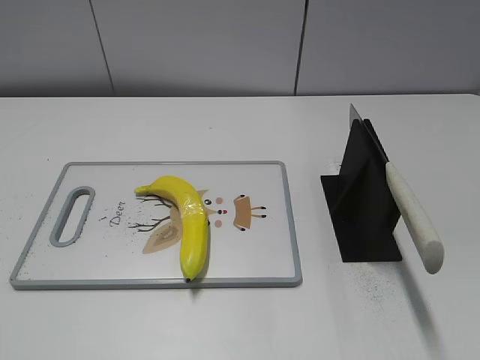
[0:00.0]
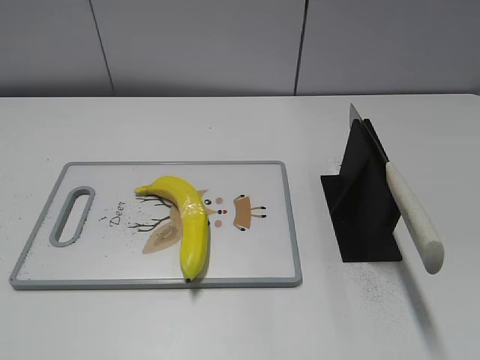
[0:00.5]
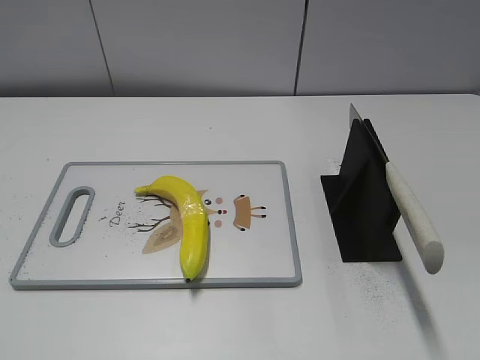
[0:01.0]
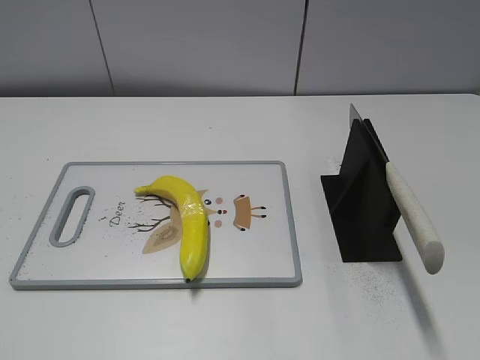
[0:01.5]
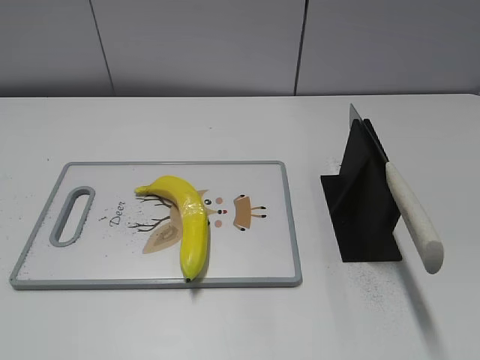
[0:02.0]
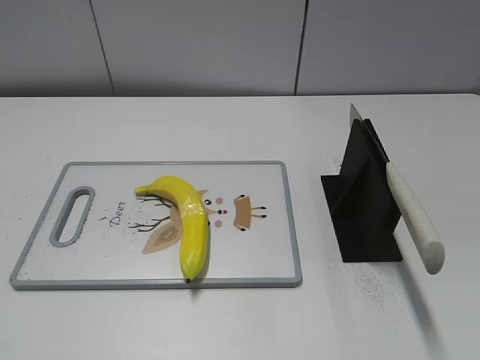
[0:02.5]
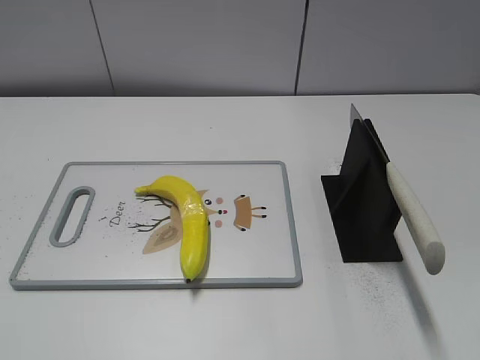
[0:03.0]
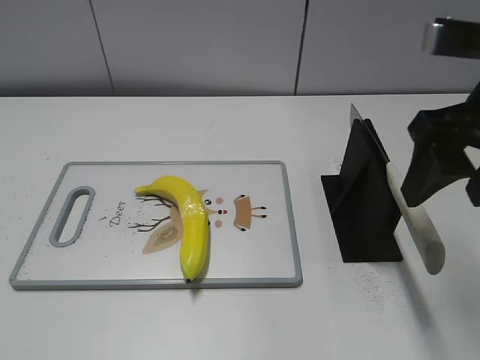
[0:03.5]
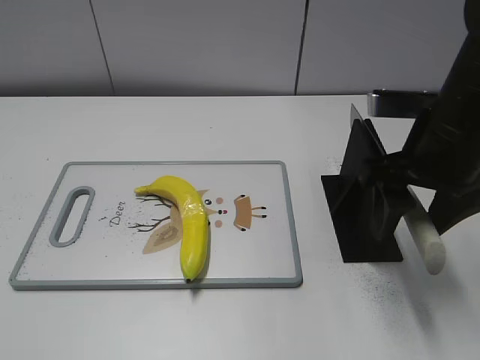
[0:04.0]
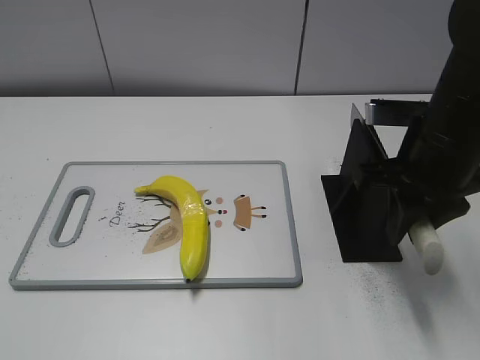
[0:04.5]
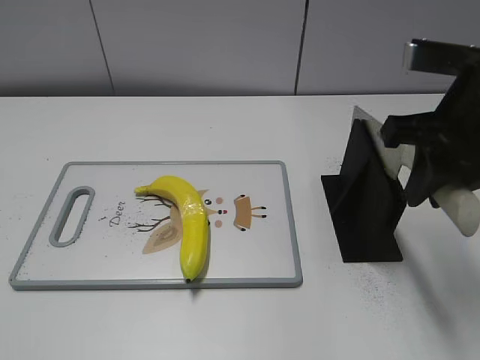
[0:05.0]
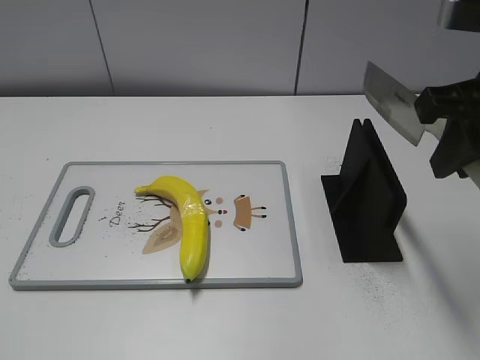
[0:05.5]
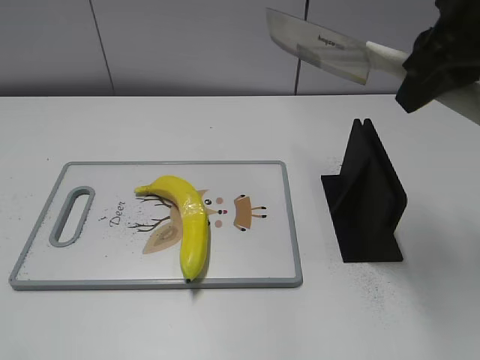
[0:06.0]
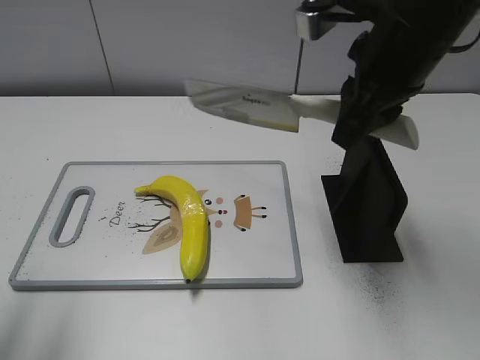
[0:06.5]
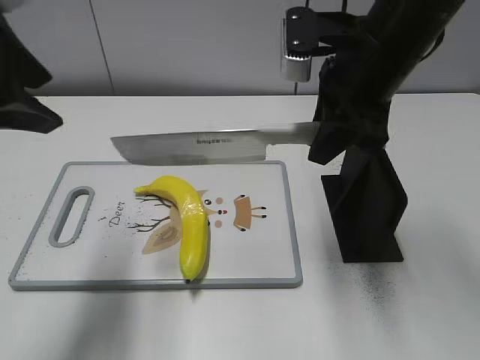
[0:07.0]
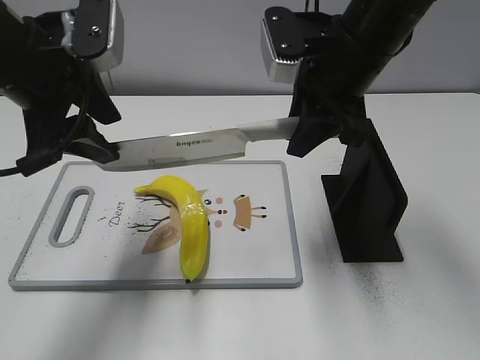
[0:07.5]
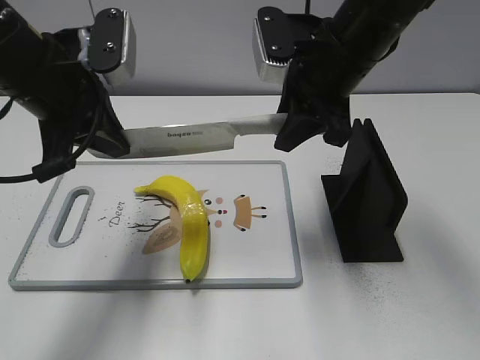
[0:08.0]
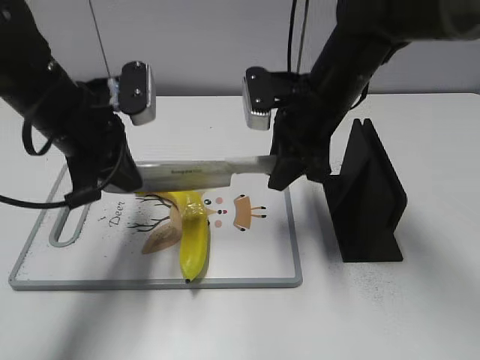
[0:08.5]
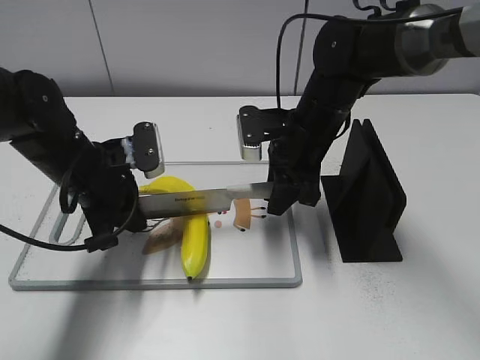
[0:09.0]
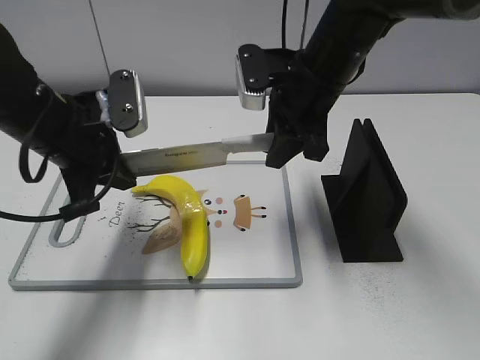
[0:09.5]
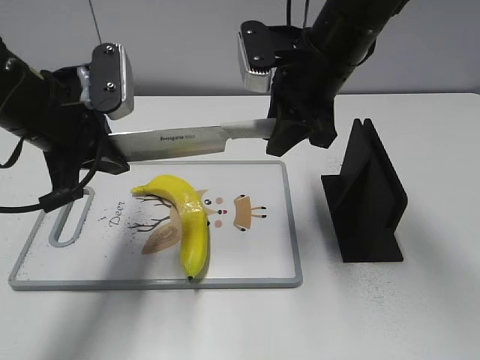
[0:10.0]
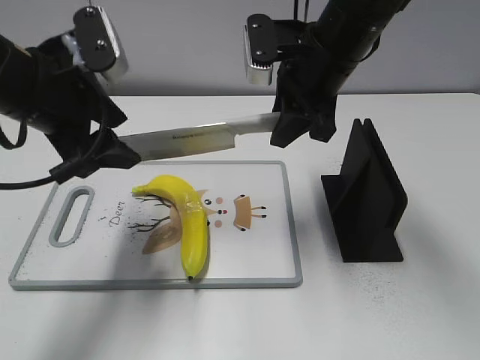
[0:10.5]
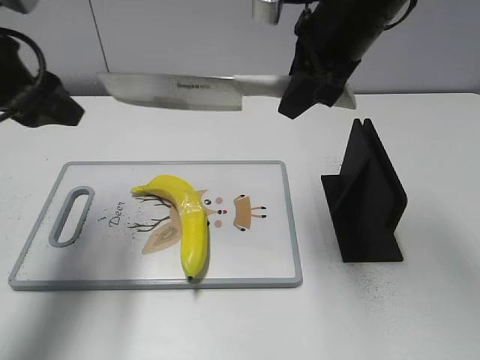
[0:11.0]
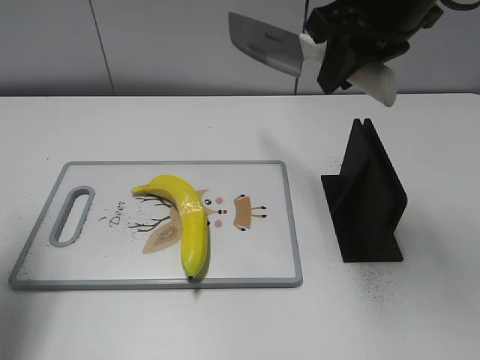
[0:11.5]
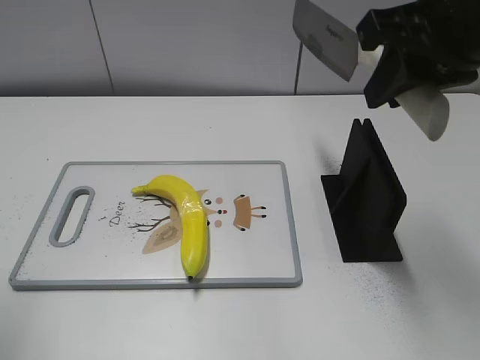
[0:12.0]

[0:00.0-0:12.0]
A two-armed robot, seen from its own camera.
Task of the whole recording: cut plastic banana.
Step, 0:00.0 to 0:05.0: Grab the knife handle with your right hand.
Step, 0:05.5 to 0:10.0: Lift the knife with your right hand.
Step, 0:10.5 to 0:11.0: Cut the banana with your right hand.
0:02.0 to 0:04.0: The right gripper shifts about 30 cm forward and to the left.
0:04.0 to 0:06.0: The right gripper is displaced upward by roughly 10 cm, and closes its fingers.
0:06.0 to 0:08.0: The left gripper travels forward and to the right by roughly 30 cm, and closes its fingers, while the right gripper is displaced downward, to the left and forward by approximately 15 cm.
0:08.0 to 0:10.0: The right gripper reaches some 10 cm downward, then returns. The left gripper reaches approximately 15 cm downward, then returns.
0:10.0 to 0:12.0: The left gripper travels backward, to the left and upward by approximately 20 cm, and opens up. Meanwhile the right gripper is displaced backward, upward and to the right by some 15 cm.

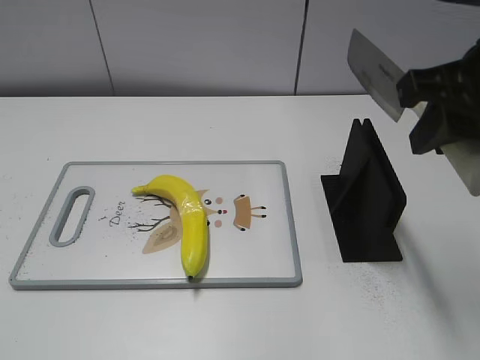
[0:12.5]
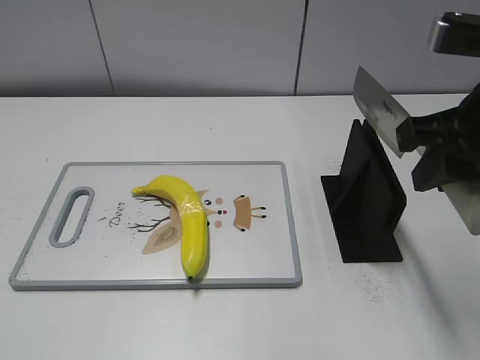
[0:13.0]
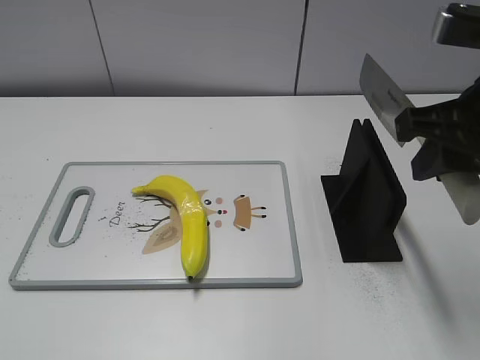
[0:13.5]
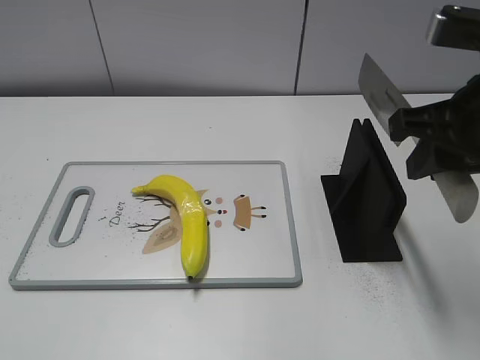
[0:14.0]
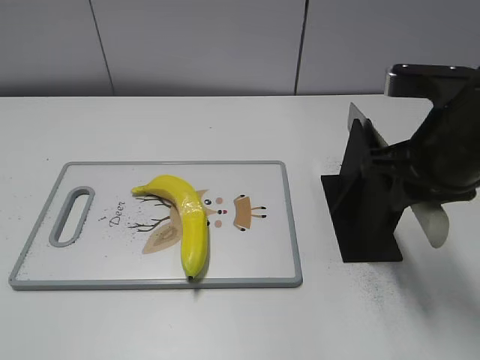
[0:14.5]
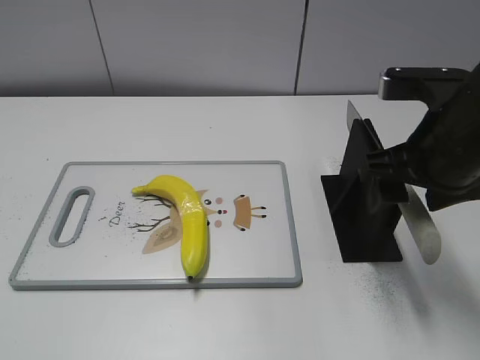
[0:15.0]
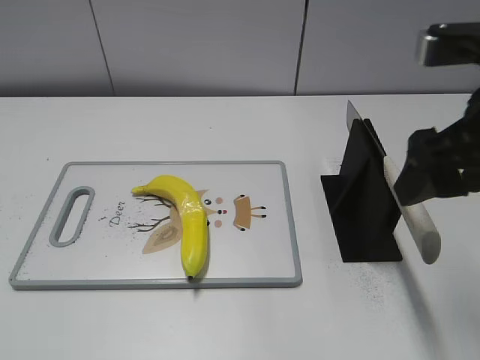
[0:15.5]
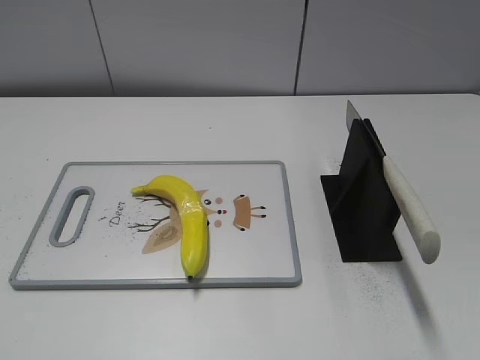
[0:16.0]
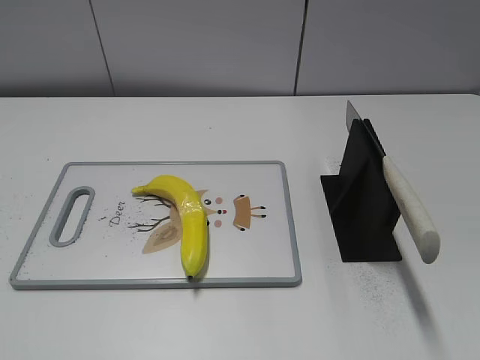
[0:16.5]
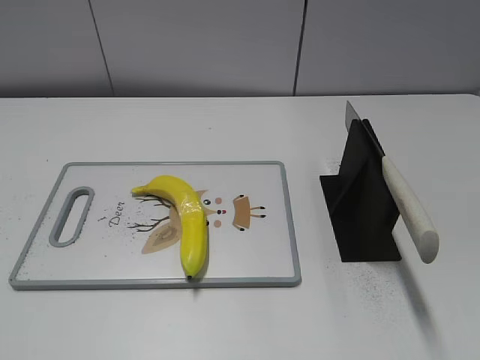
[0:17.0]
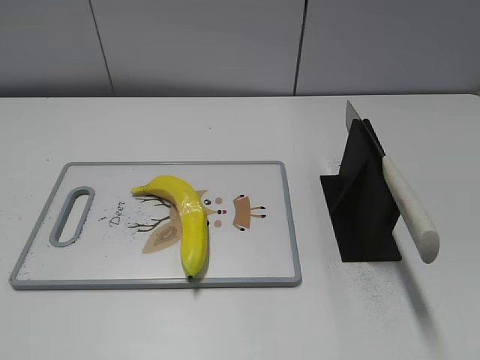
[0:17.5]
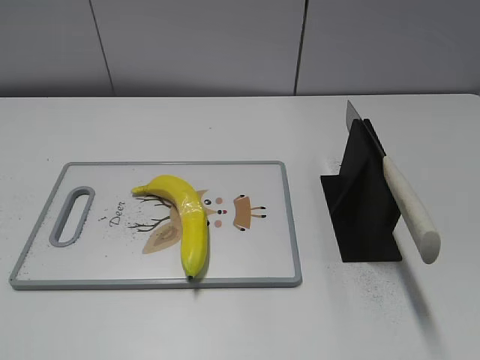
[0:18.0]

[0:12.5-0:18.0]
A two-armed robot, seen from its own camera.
Task of the whole recording: cut plastic banana.
Step, 0:12.5 to 0:18.0: Place the knife on the storage rack with your right hand.
0:12.5 to 0:14.5: The right gripper shifts about 10 cm downward.
0:14.5 to 0:16.0: The right gripper is displaced backward, upward and to the right by approximately 20 cm, and opens up.

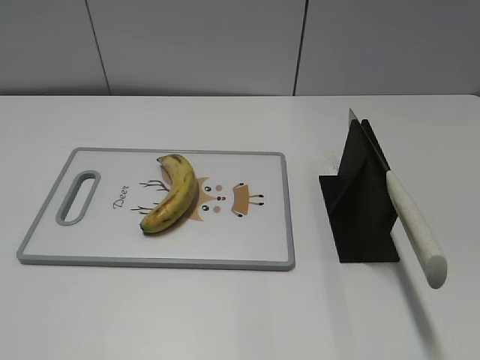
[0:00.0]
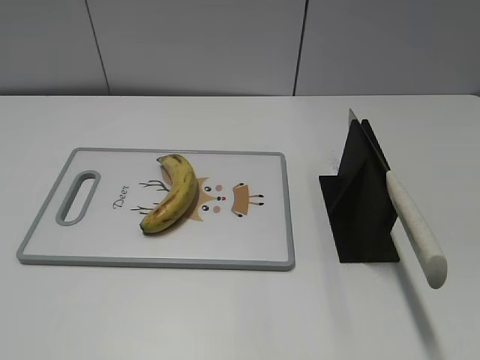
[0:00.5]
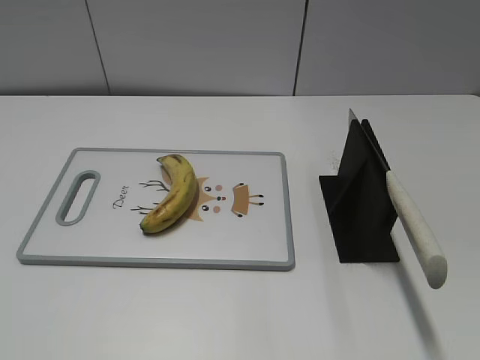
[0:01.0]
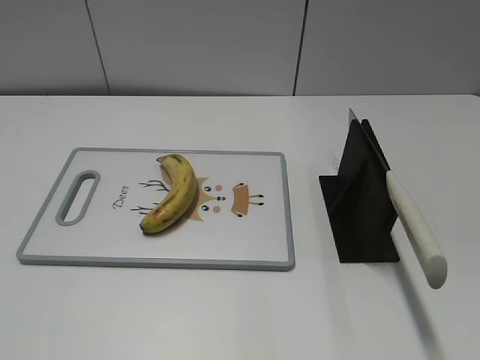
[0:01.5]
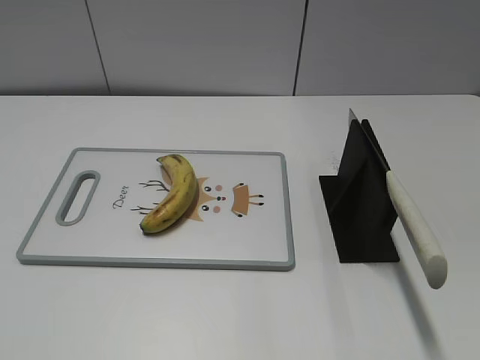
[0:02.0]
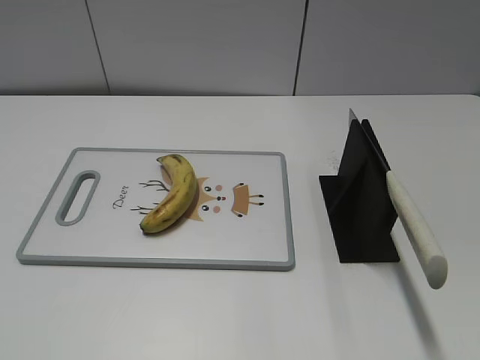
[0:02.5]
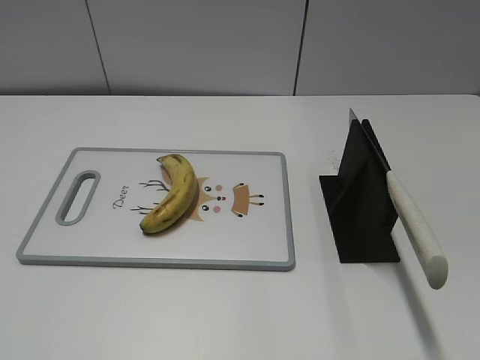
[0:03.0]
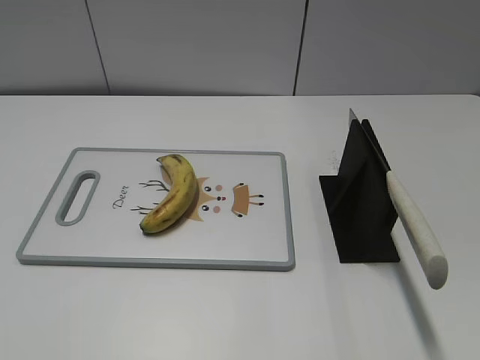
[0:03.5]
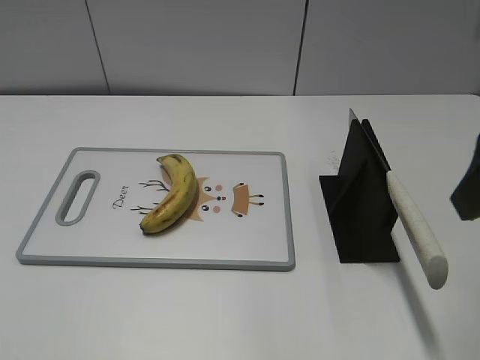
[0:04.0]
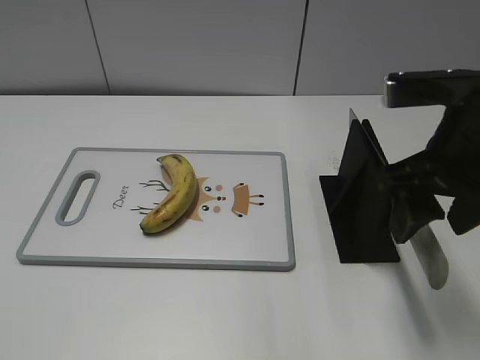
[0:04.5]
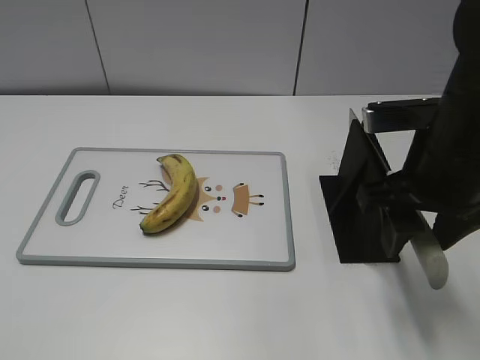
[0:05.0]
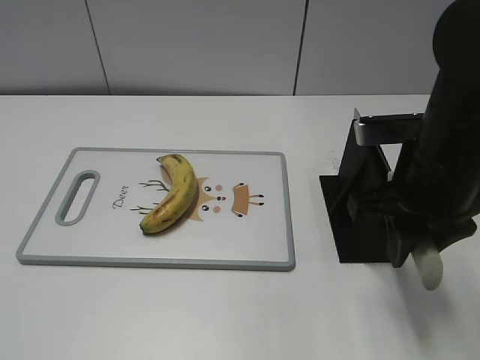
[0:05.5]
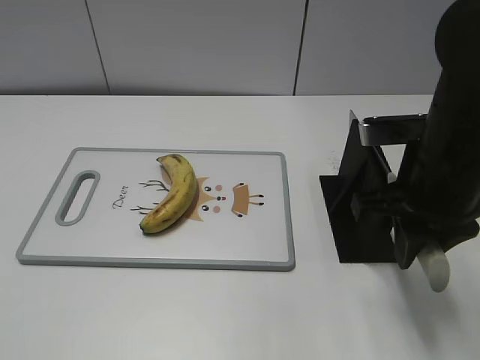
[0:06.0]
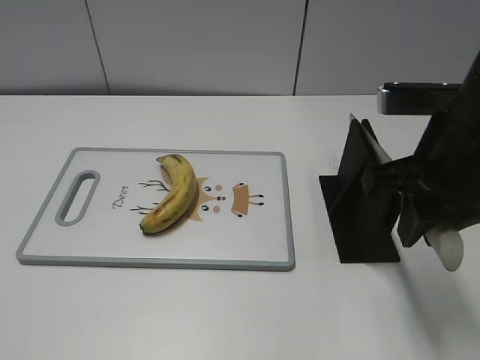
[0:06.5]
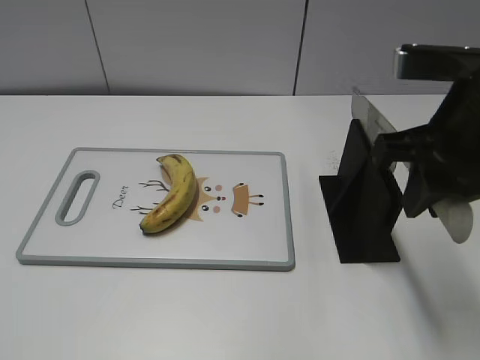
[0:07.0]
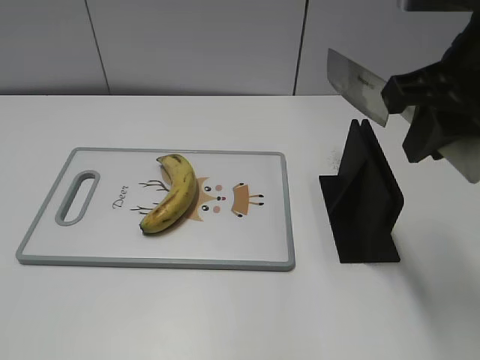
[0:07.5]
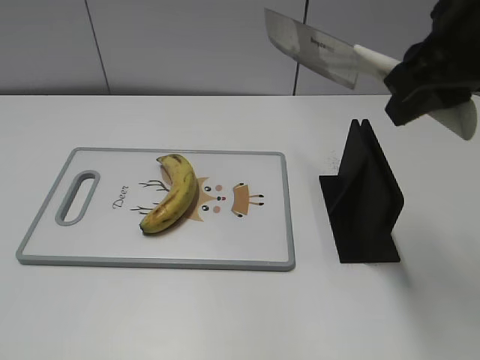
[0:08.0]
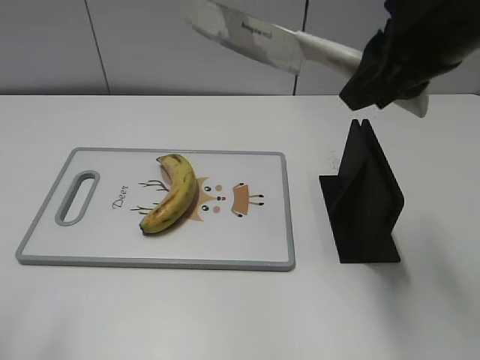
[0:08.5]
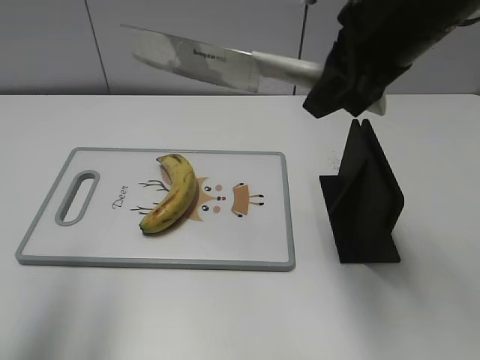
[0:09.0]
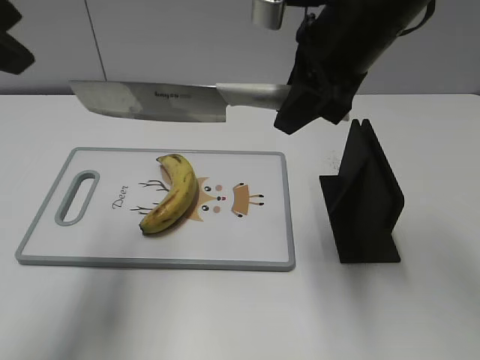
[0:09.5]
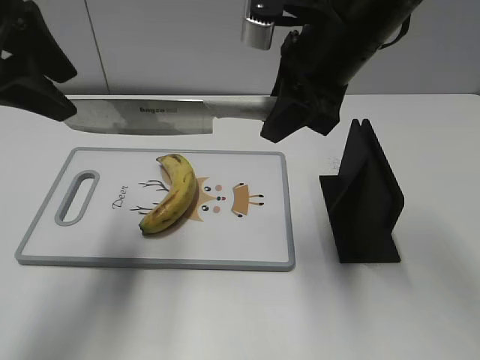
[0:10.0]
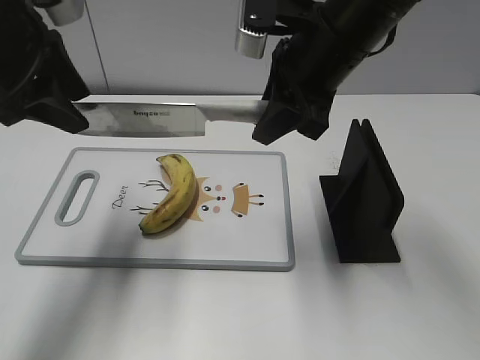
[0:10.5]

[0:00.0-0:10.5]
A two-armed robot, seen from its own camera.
Task of the whole recording: cut banana.
Step, 0:00.0 to 0:06.5: Grab the knife handle with your right hand.
0:02.0 to 0:04.0: The right gripper is displaced forward and to the left by about 20 cm.
0:04.0 to 0:06.5: The right gripper moves downward, approximately 10 cm, and closes.
0:06.5 to 0:08.5: The left gripper travels forward and upward by roughly 10 cm, while the right gripper goes approximately 10 cm upward.
0:08.5 to 0:10.5: The left gripper goes roughly 25 cm forward. The right gripper moves forward, downward and to the left, roughly 10 cm.
